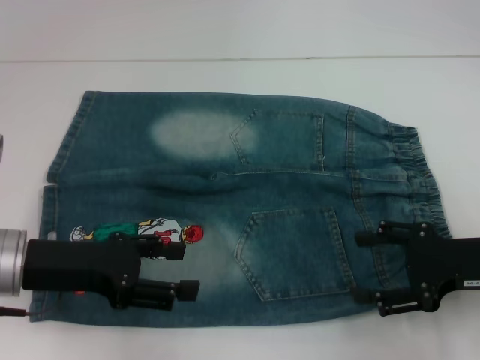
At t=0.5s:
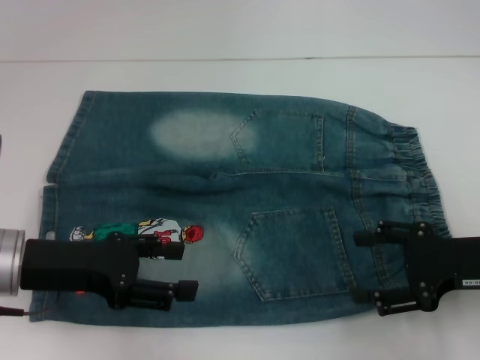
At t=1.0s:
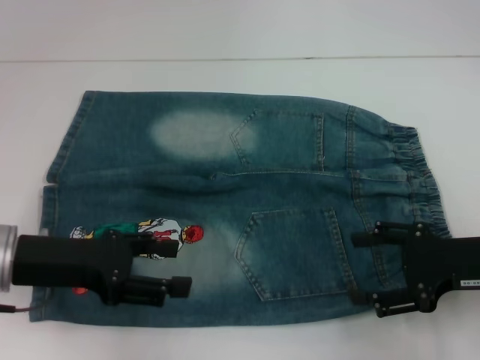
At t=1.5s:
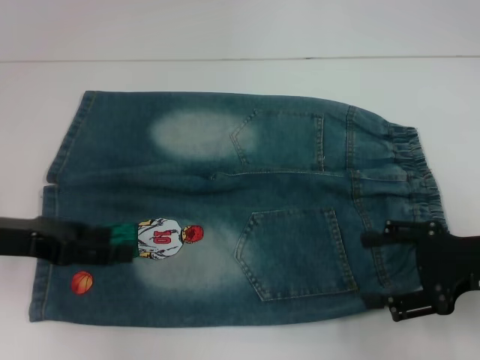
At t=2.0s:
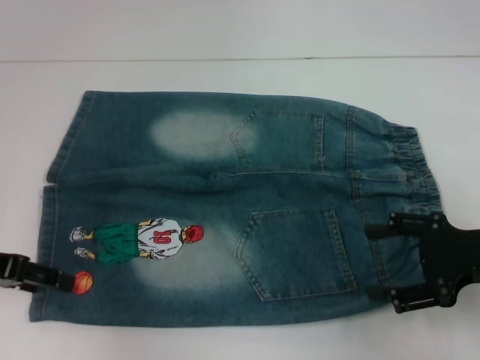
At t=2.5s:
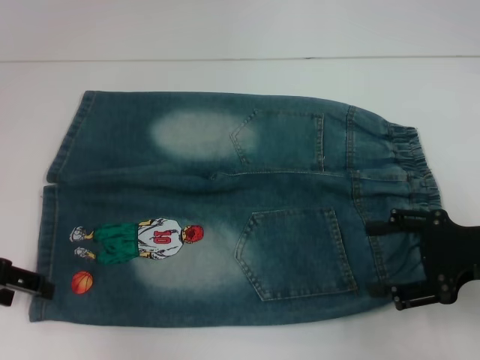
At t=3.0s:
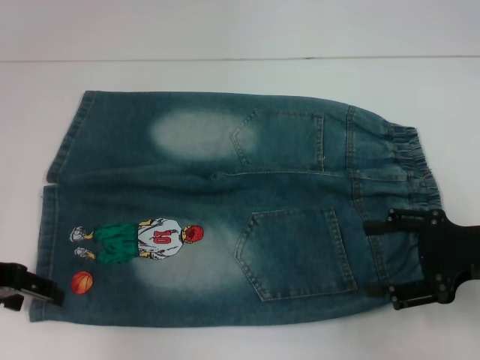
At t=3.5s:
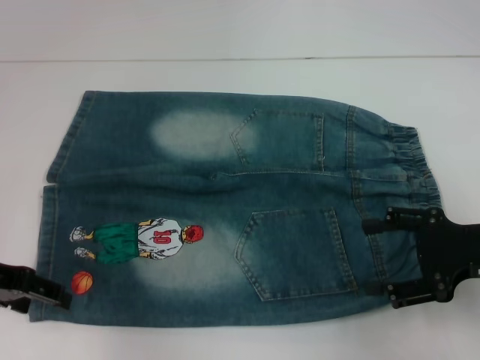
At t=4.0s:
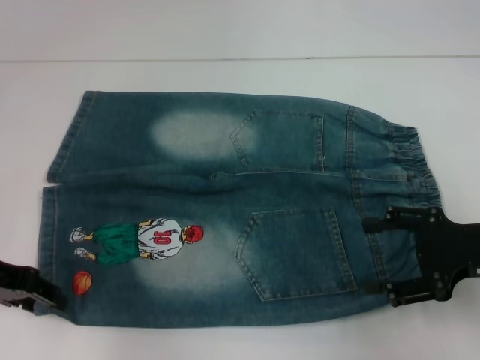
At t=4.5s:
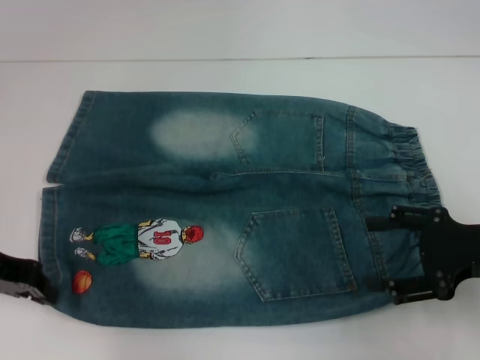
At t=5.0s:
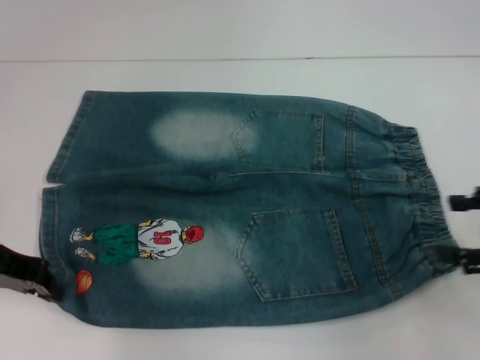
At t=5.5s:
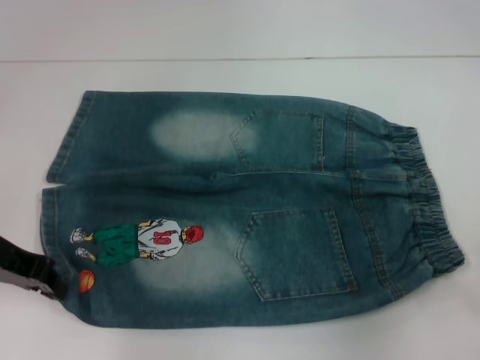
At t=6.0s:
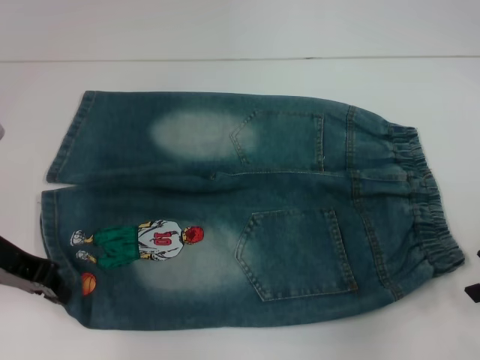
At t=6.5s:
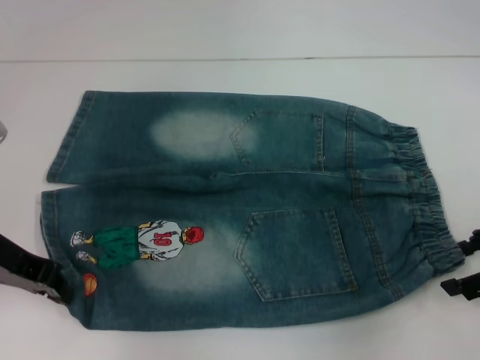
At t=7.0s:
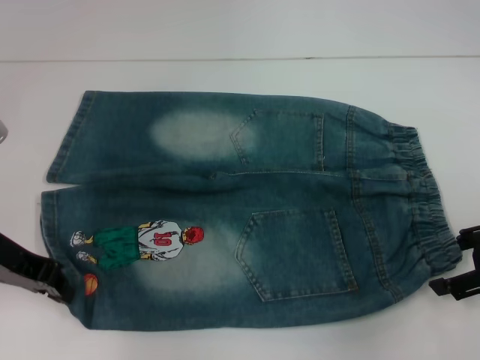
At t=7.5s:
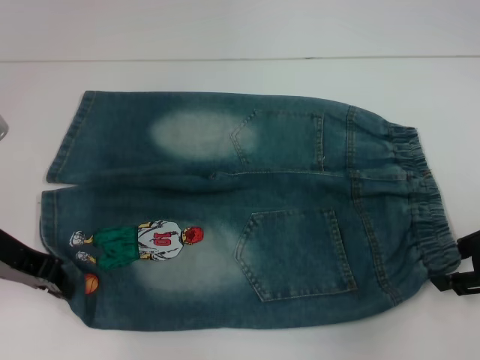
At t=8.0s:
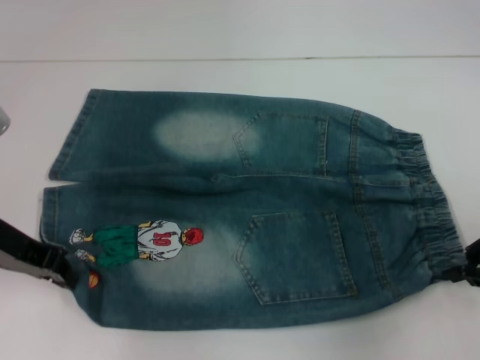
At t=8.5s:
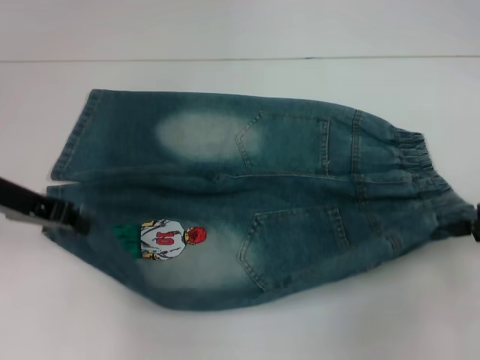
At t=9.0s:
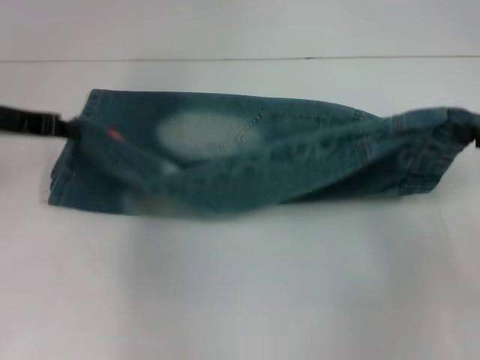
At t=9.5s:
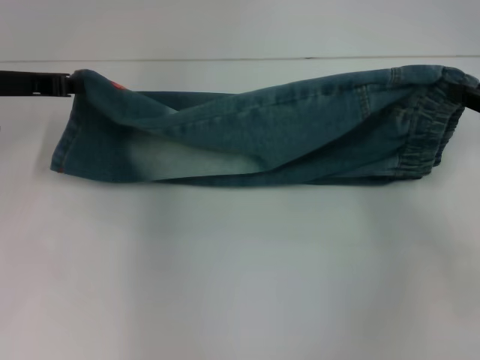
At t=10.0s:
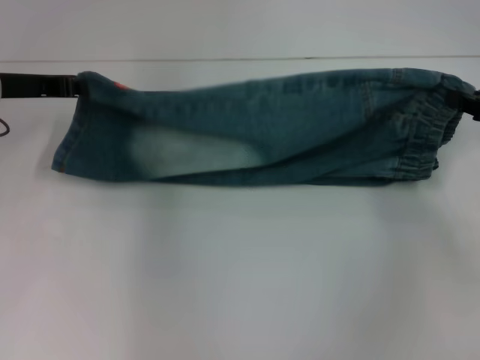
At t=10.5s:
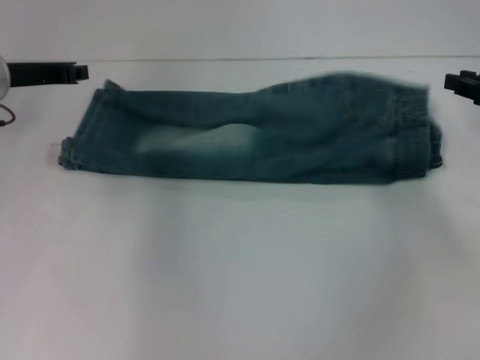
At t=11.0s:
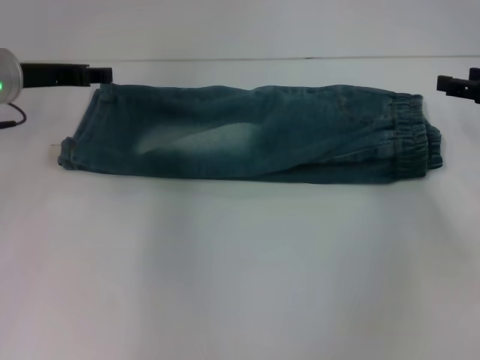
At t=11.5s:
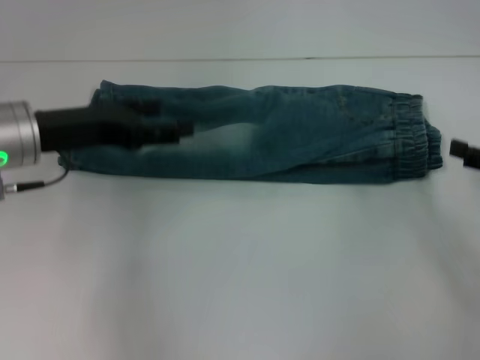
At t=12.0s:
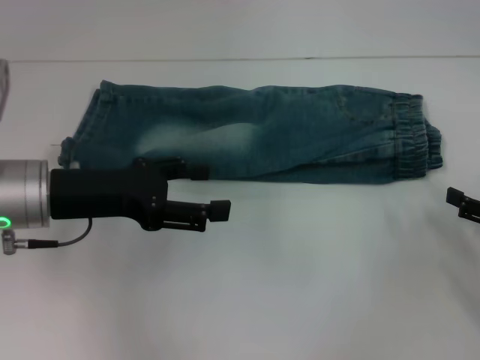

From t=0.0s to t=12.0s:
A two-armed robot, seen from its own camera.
Step, from t=0.0s to t=4.5s: Grab the lower left pant leg with your left hand.
Step, from t=5.0s to t=7.5s: Hold the lower right waistband with your right hand.
Step, from t=8.5s to t=10.0s: Fold upward with your left hand.
From t=0.0s to t=2.0s: The left gripper moves to the left, roughly 10 cm.
From t=2.0s to t=4.0s: There are only small adjustments of the grippers.
From t=4.0s to t=6.0s: The left gripper closes, while the right gripper goes approximately 5 cm to the right.
From t=6.0s to t=8.0s: The right gripper closes.
From t=8.0s to t=10.0s: Both grippers travel together forward, about 5 cm.
From t=10.0s to t=12.0s: The left gripper travels backward and to the right by about 10 cm, and opens up. The right gripper goes about 15 cm backward and downward, and opens its fingers.

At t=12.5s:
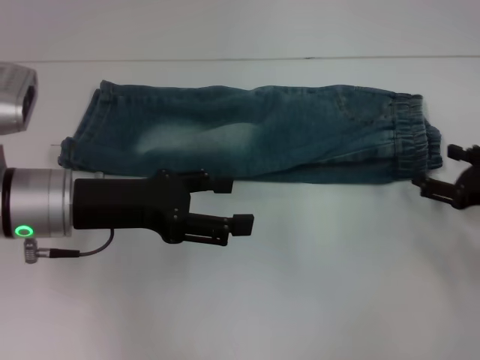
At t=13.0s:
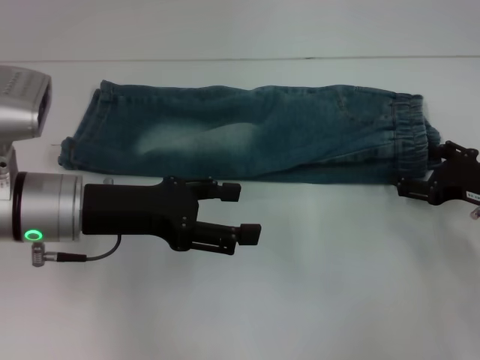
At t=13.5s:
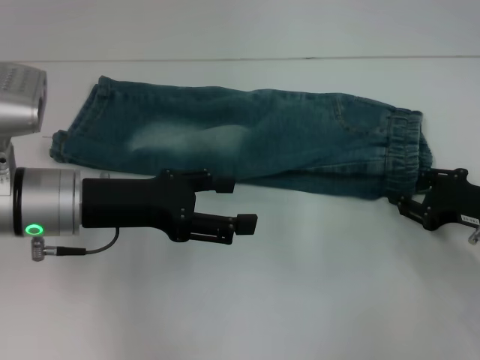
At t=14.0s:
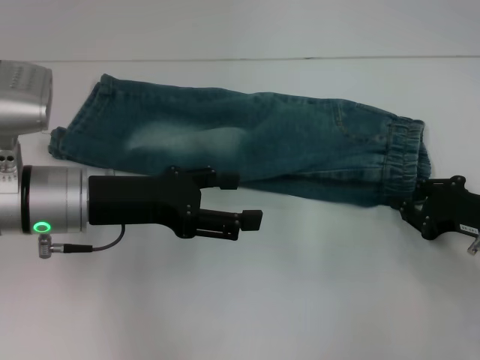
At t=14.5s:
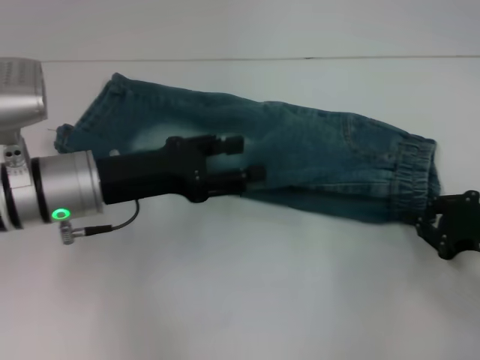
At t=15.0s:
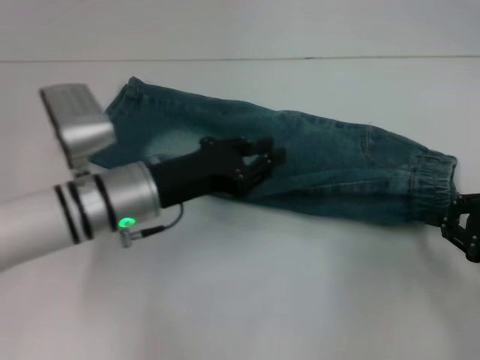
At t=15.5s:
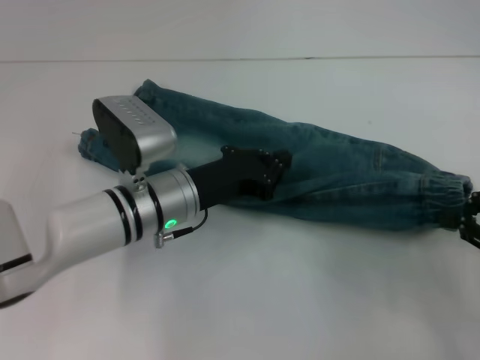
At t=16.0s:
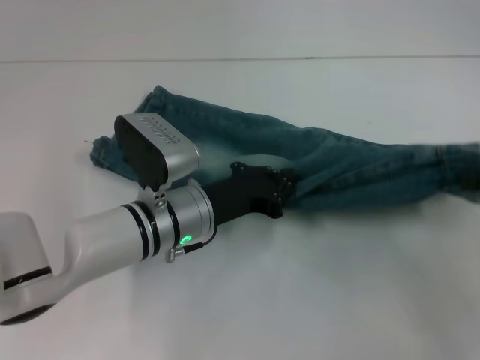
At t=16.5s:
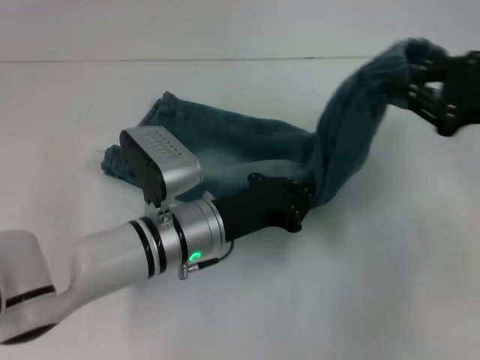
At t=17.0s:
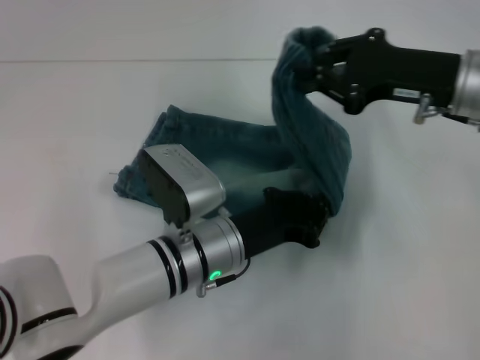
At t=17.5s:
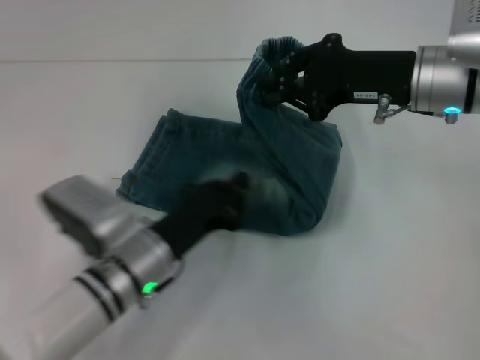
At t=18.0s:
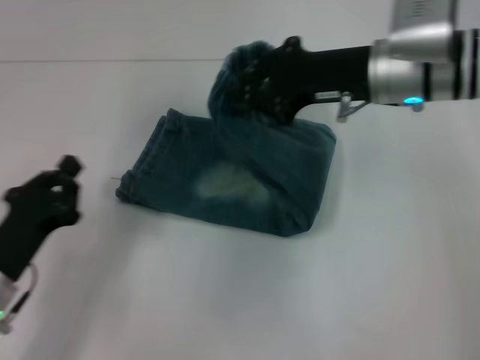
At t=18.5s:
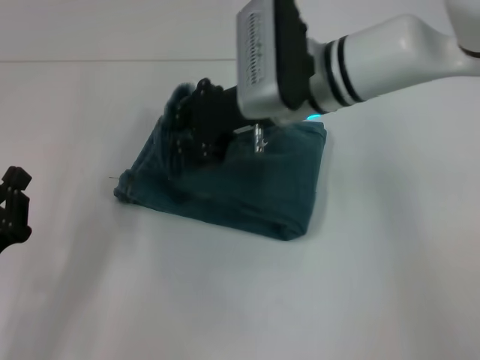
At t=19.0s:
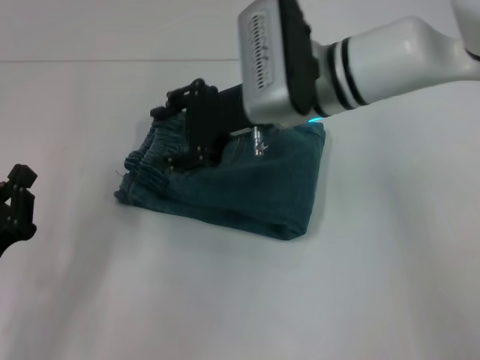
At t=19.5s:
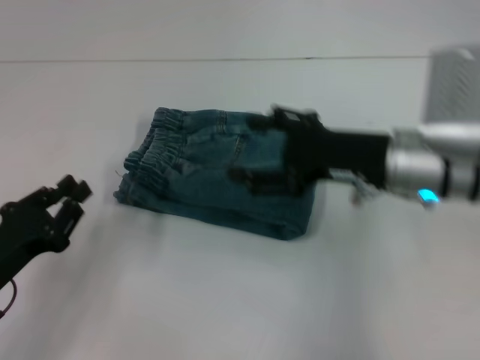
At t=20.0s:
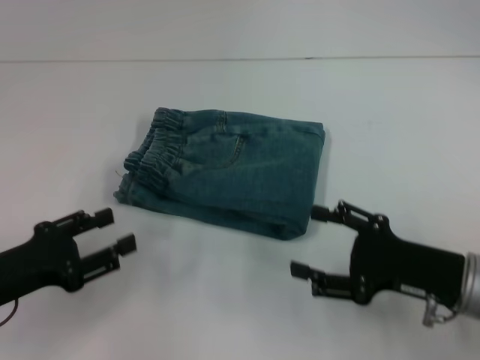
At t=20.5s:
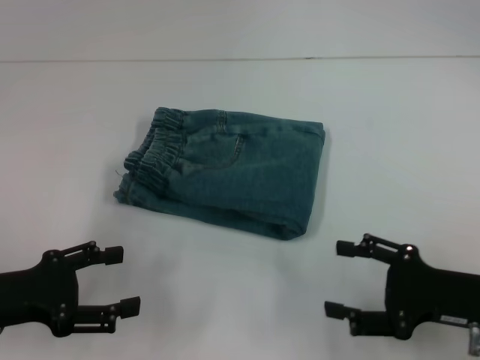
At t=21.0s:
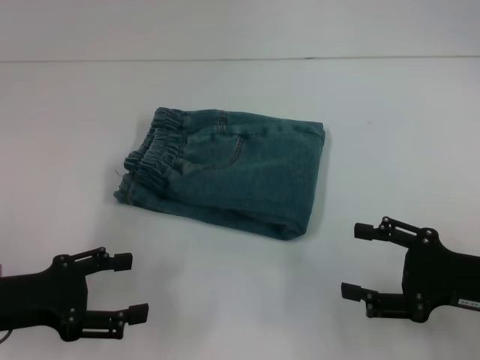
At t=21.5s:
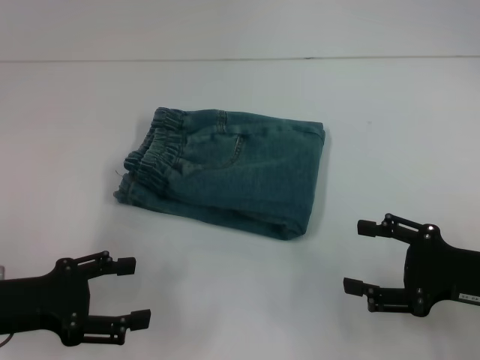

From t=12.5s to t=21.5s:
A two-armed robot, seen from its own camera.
Step, from t=14.5s to t=17.0s: Press the middle of the pants with your left hand.
Step, from t=17.5s to t=18.5s: Fold to the left with your right hand.
From t=12.5s to t=14.5s: The right gripper closes up.
From t=14.5s to t=17.0s: The right gripper goes approximately 20 cm upward, forward and to the left, while the left gripper is displaced to the right and downward by some 15 cm, and closes up.
From t=17.0s to t=19.5s: The right gripper reaches roughly 15 cm to the left, then returns, and opens; the left gripper travels to the left by some 25 cm.
From t=19.5s to t=21.5s: The left gripper opens its fingers, while the right gripper moves to the right, backward and downward, roughly 15 cm.
